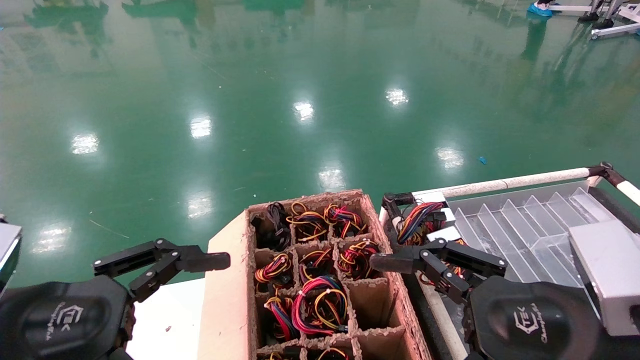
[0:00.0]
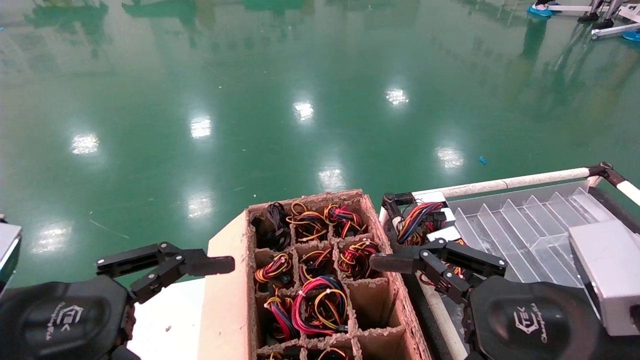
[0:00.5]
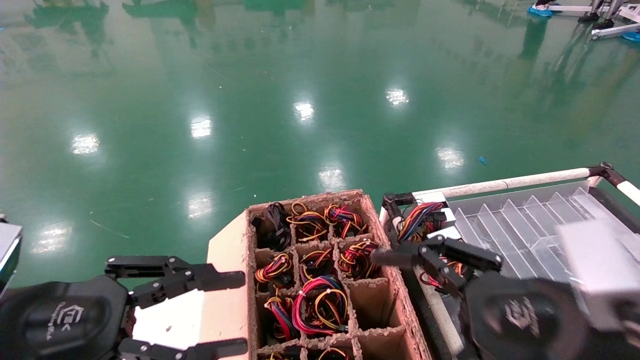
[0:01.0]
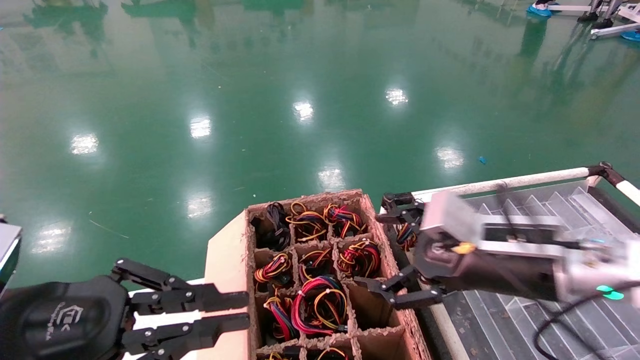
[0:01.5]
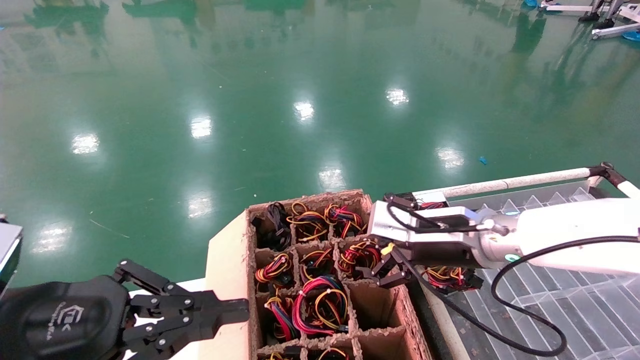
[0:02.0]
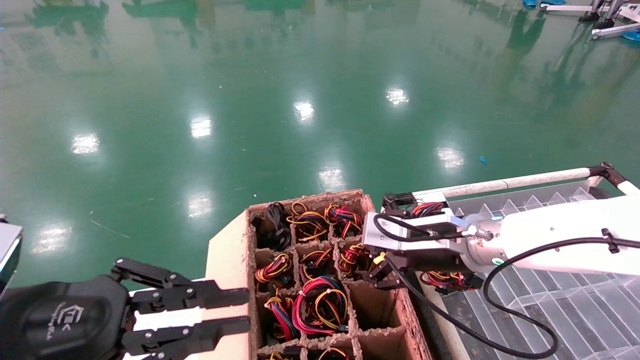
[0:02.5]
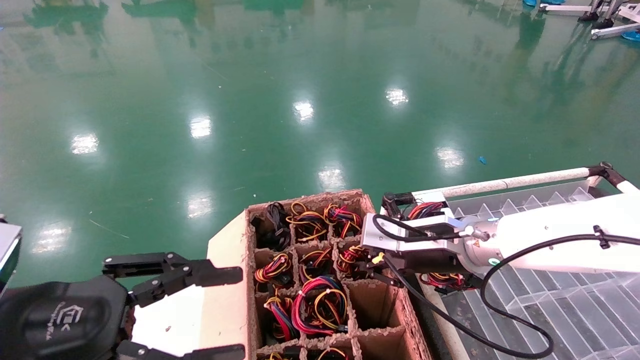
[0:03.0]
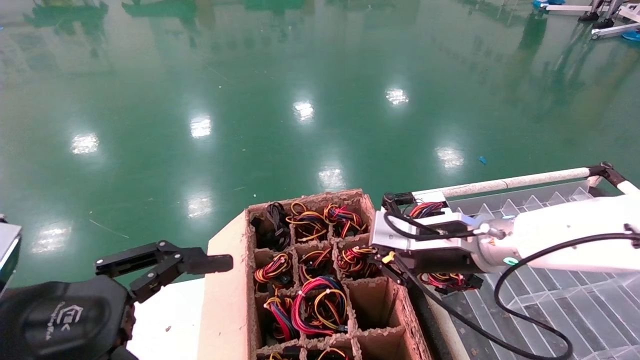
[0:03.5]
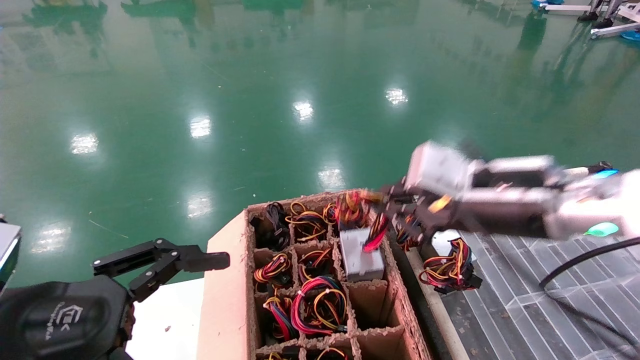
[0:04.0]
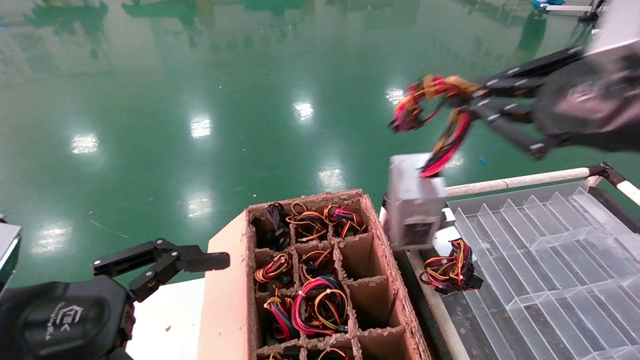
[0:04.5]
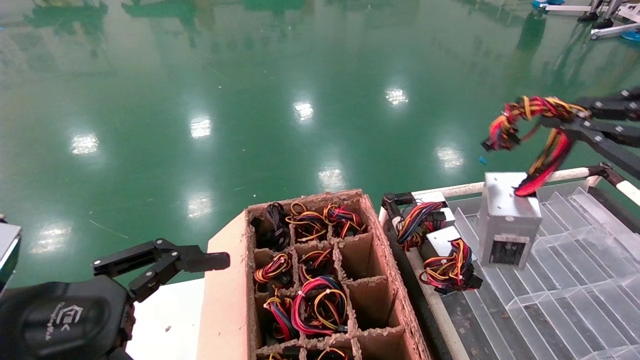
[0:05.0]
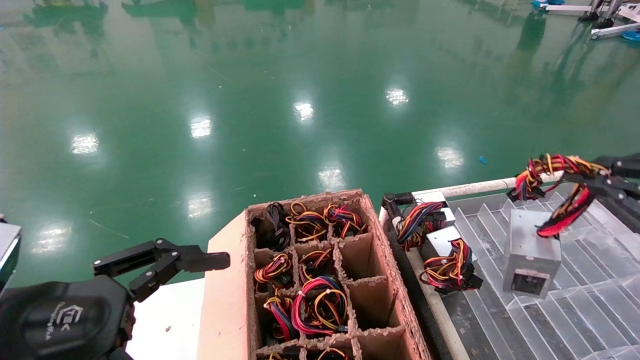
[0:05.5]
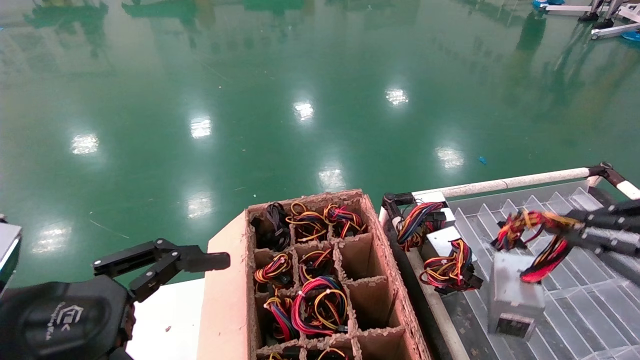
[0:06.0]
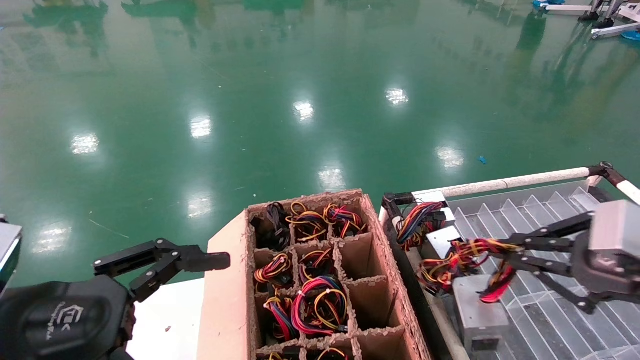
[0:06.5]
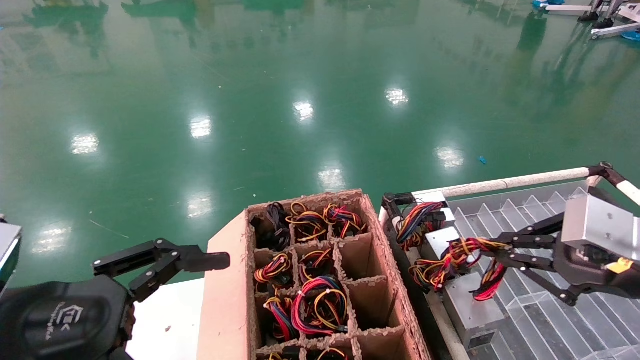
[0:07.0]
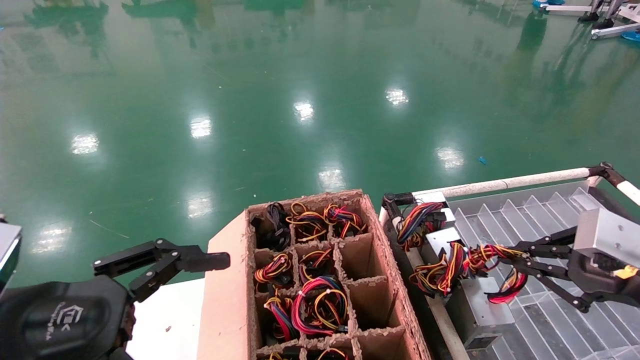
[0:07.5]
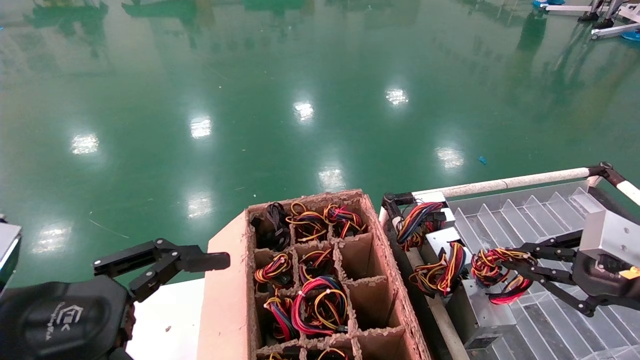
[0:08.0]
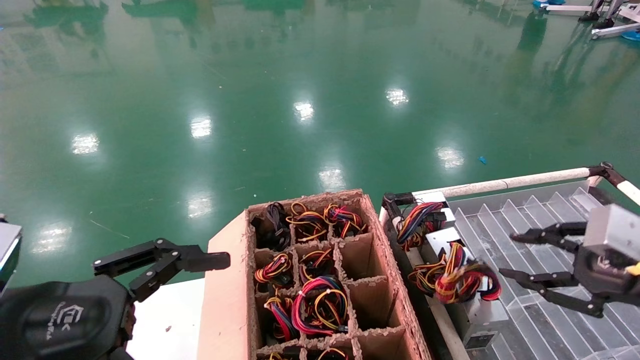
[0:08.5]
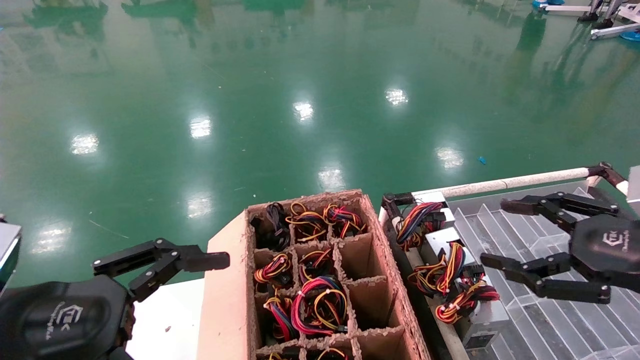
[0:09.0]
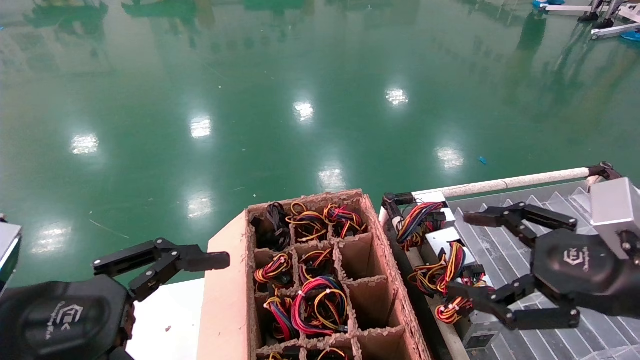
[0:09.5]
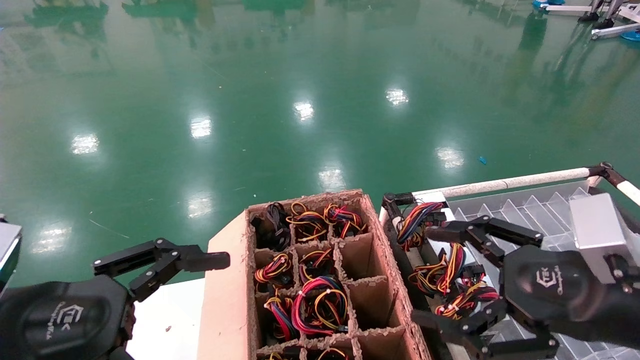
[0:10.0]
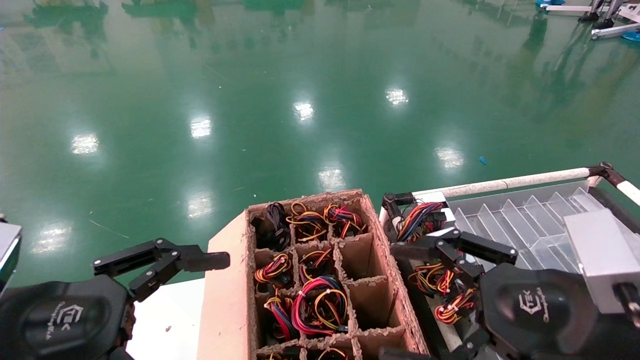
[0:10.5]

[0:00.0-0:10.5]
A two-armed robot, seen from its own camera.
Step, 0:01.0 to 0:03.0: Grab and lift the power supply from the large box.
Step, 0:03.5 to 0:08.0: Place the power supply on the operating table.
0:00.0 to 0:02.0: The right gripper is displaced forward by about 20 cm; the left gripper closes up.
0:02.0 to 0:04.0: The right gripper goes approximately 10 cm upward and backward, and closes up. The left gripper opens up.
0:04.0 to 0:06.5: The right gripper travels to the right and backward by some 15 cm.
0:06.5 to 0:08.5: There are only small adjustments of the grippers.
0:08.5 to 0:10.5: The right gripper goes some 15 cm to the left, and opens up.
